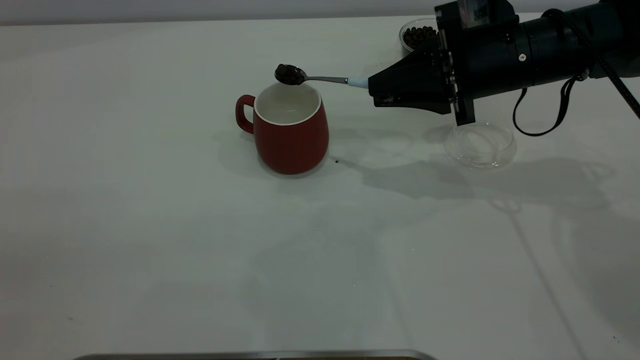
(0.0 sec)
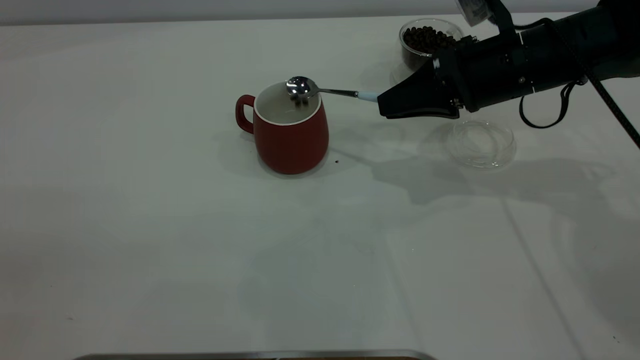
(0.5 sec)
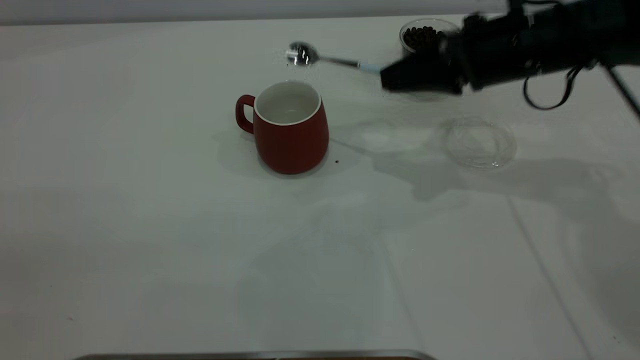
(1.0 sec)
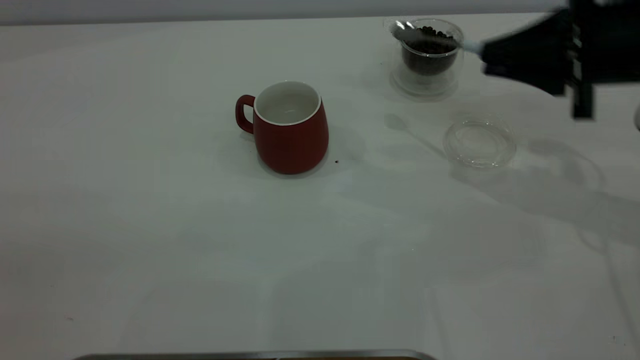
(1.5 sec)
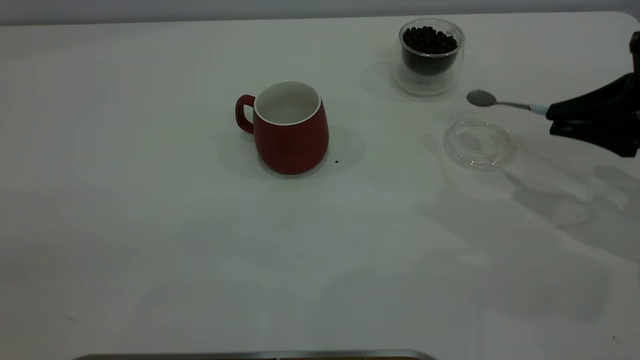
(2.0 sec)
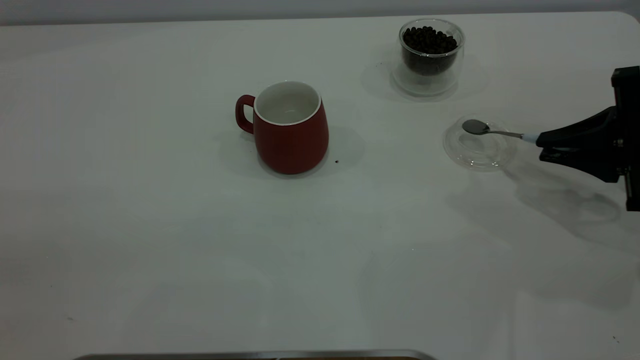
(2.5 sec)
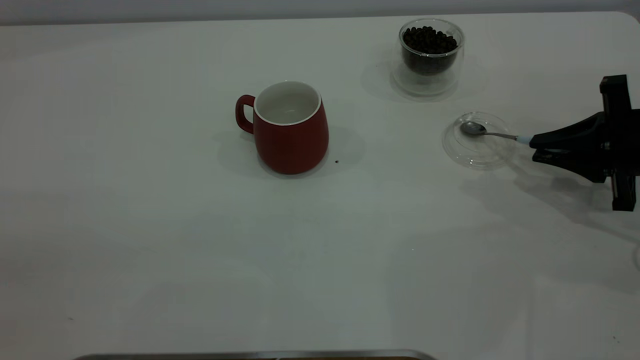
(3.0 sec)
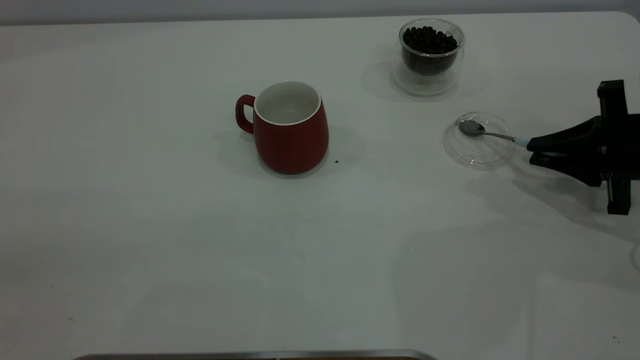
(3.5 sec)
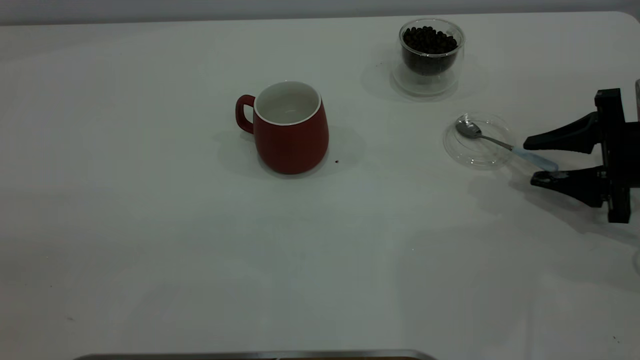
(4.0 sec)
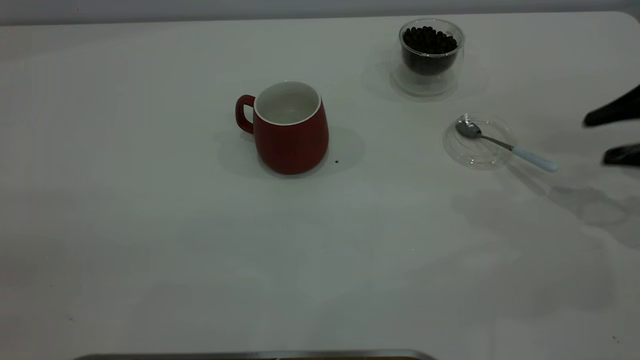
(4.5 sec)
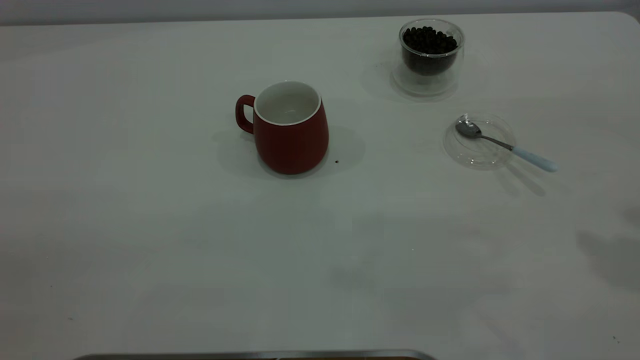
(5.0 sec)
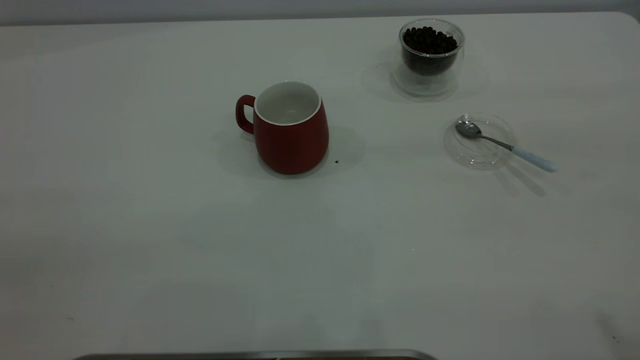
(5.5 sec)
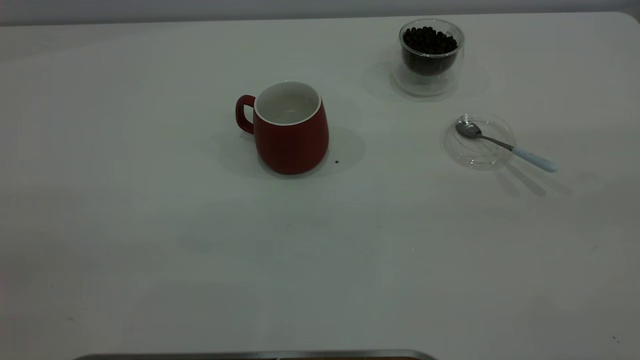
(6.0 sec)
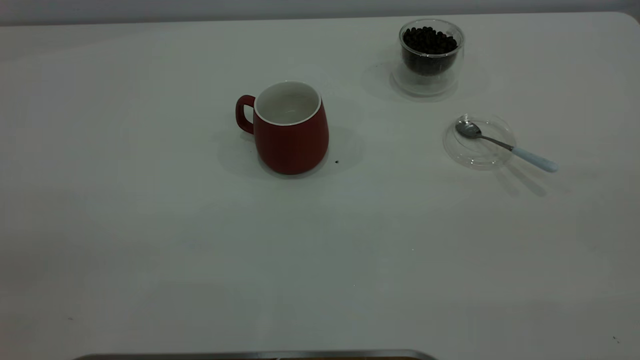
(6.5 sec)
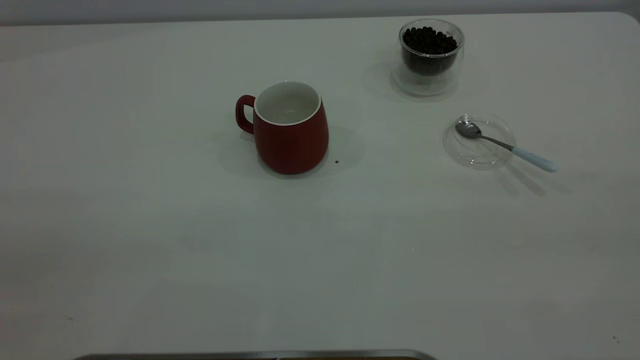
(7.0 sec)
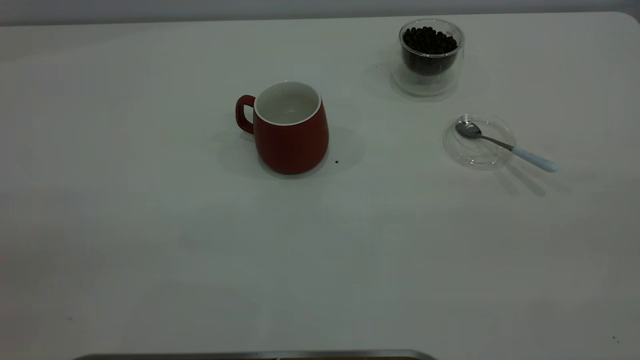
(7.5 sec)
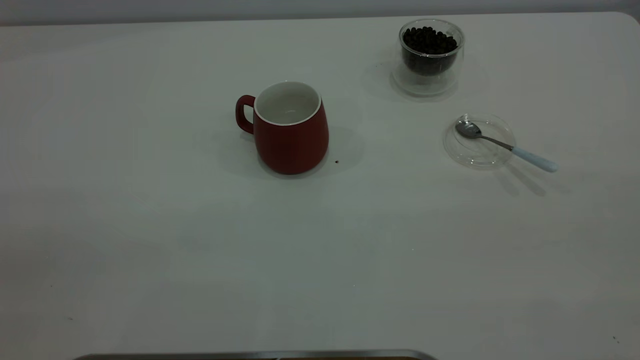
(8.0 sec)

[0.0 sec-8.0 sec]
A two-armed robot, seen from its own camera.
Task of the whole recording: the left gripper place the red cup in the center of the table, the right gripper take the blue spoon from the cup lid and scoop out the coffee beans from the coffee cup and put them into the red cup, the right gripper put the spoon back into the cup lid.
Step, 1.0 sec to 4.0 sec: Place the spoon back in its original place.
0.0 sec to 2.0 sec: The right gripper goes some 15 cm to the right and backward.
2.0 sec to 4.0 sec: The right gripper shifts about 5 cm downward, and opens its fingers.
4.0 sec to 6.0 sec: The right gripper moves upward and backward, approximately 40 cm.

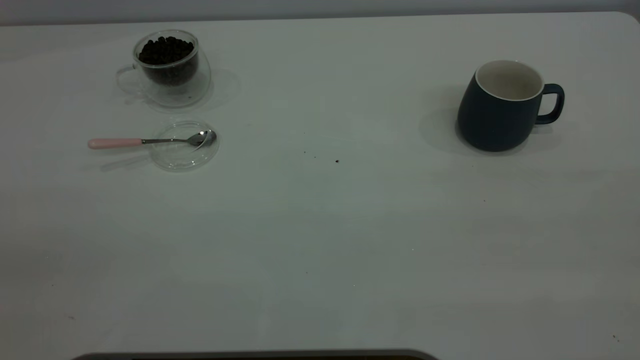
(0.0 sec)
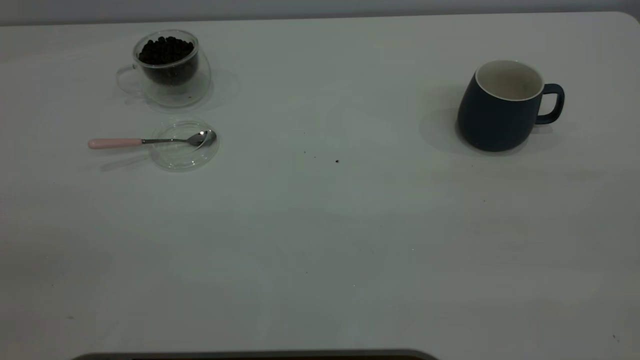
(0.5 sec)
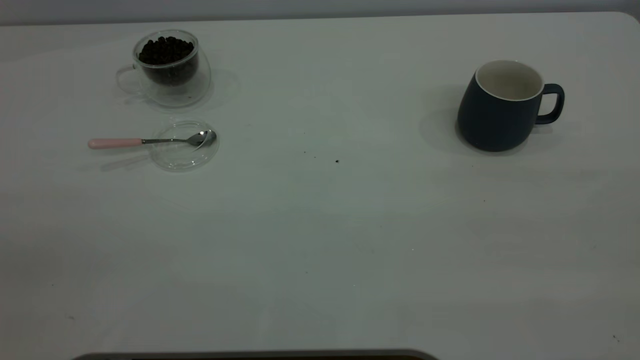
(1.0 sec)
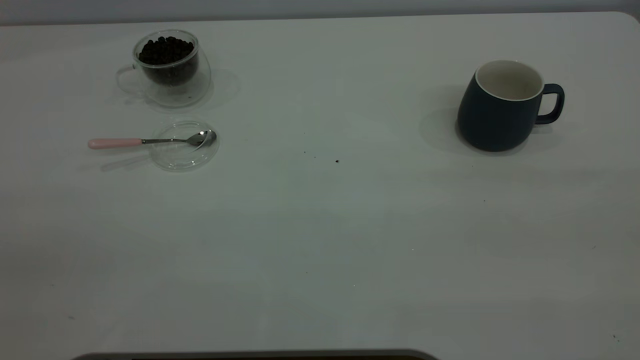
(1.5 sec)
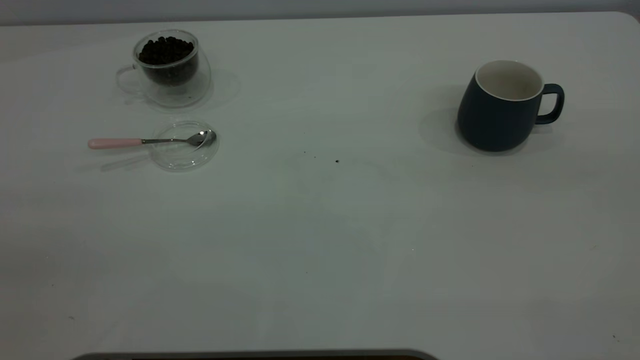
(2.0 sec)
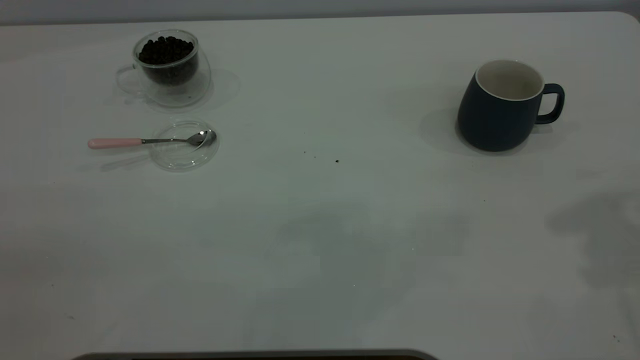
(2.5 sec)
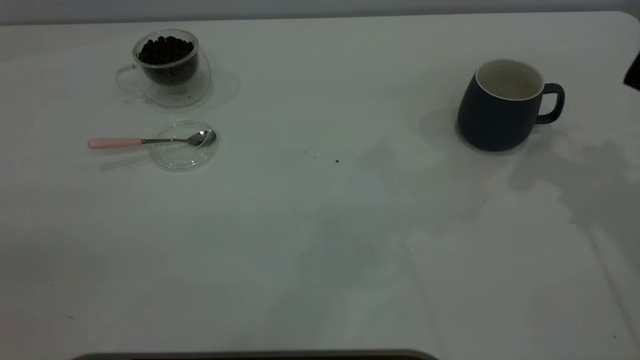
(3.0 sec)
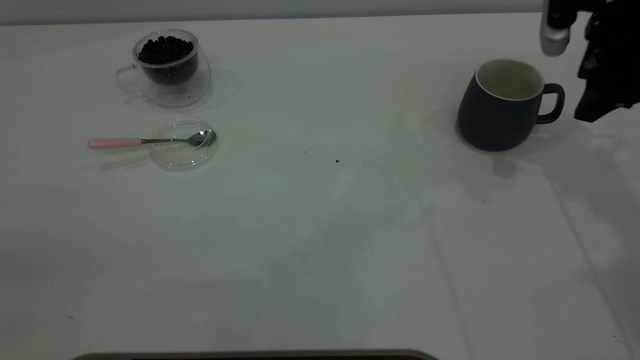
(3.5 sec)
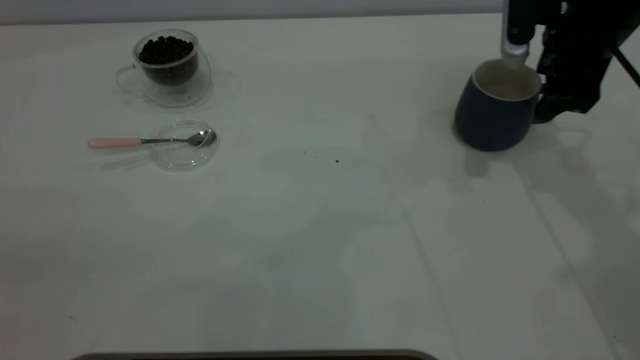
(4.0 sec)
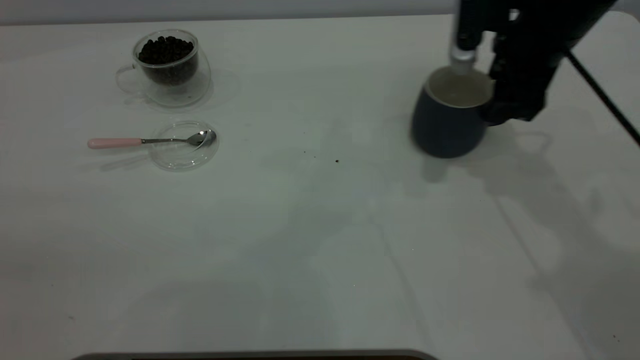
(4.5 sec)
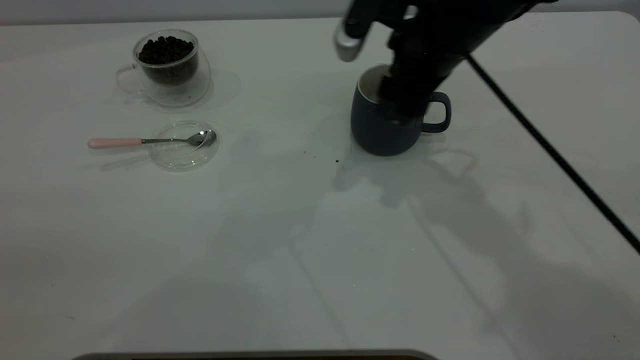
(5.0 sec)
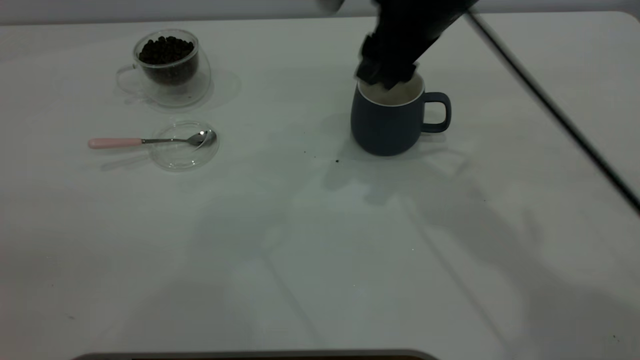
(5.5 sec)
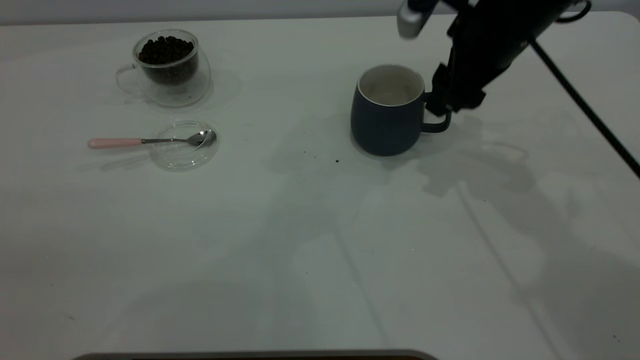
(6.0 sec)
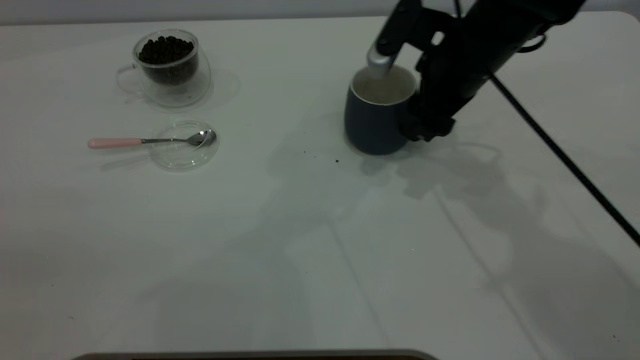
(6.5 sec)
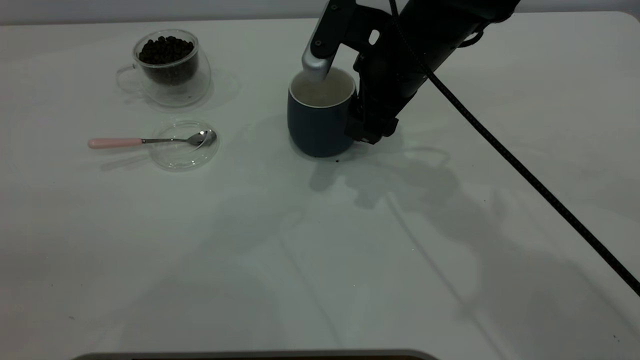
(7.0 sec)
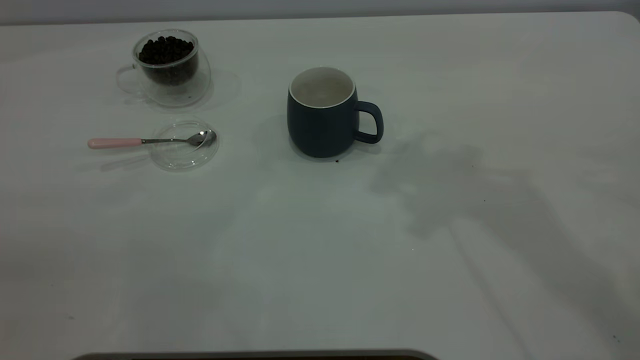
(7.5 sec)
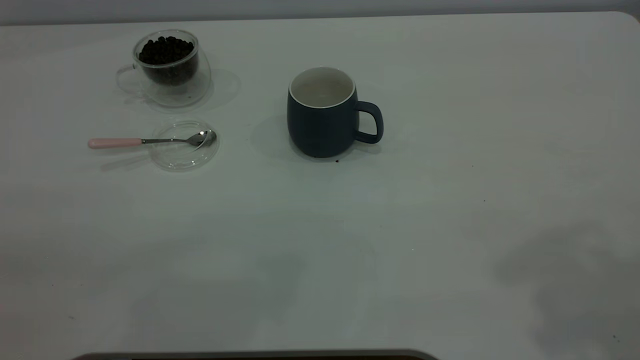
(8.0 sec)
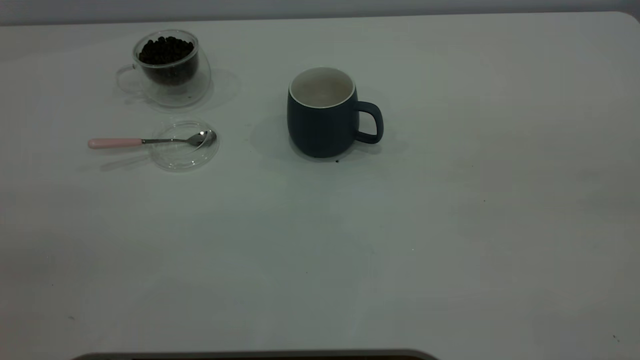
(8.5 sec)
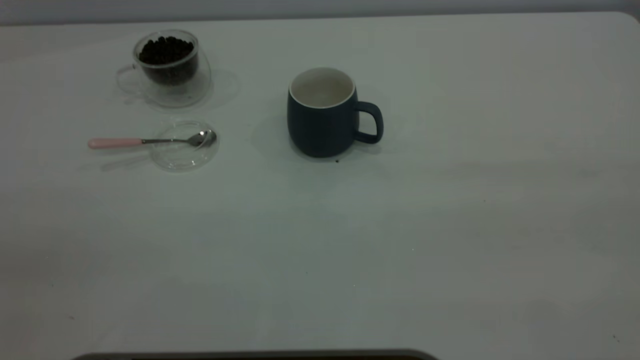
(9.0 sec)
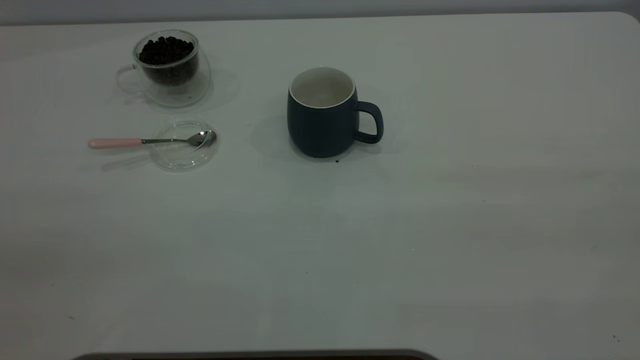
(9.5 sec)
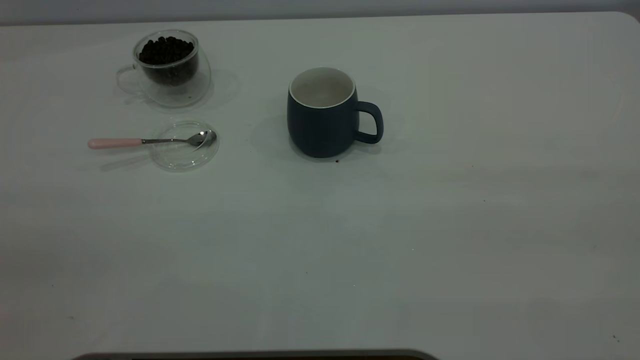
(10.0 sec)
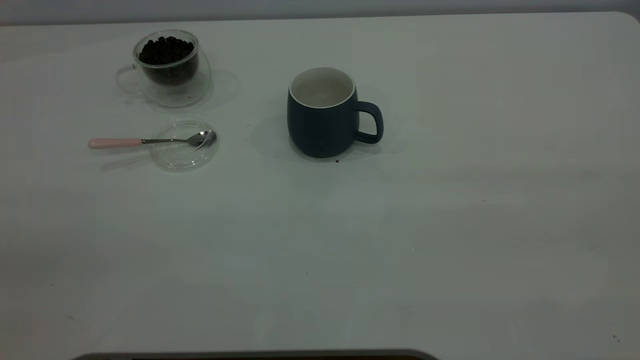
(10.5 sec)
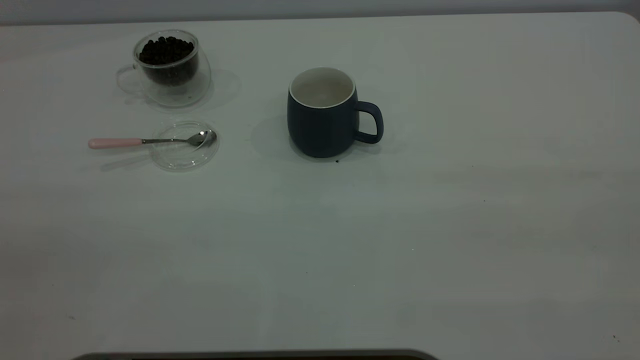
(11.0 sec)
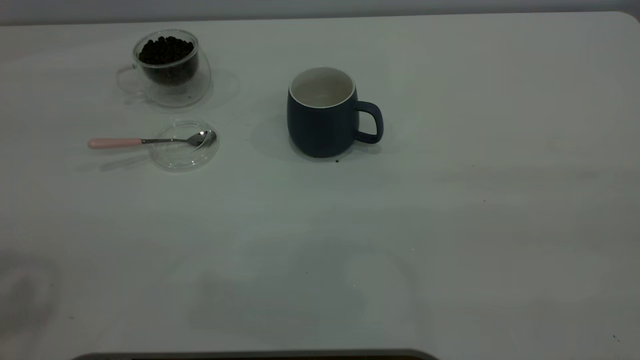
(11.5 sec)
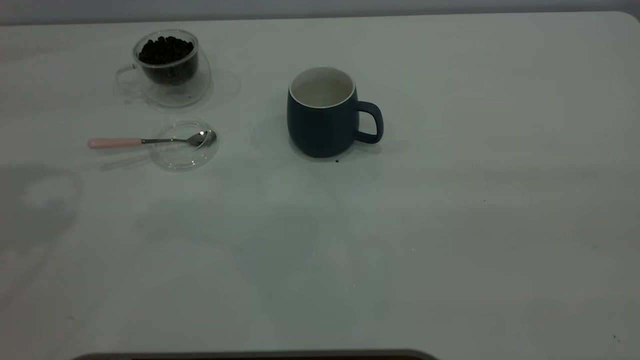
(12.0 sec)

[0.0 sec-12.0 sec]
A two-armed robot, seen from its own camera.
Task of the whole recording: the right gripper place the grey cup in the center of the table, the left gripper take the pink spoon from the cup lid and scoop out the coffee beans from the coffee cup and put them into the grey cup, the left gripper put the spoon back into the cup lid.
Step, 0.0 sec to 7.0 sec: Move the cup to the center of view.
2.0 sec to 4.0 sec: The right gripper goes about 40 cm forward and downward.
4.0 sec to 6.0 sec: The right gripper shifts some 10 cm to the left.
6.0 sec to 8.0 sec: The right gripper moves upward and backward, approximately 40 cm.
